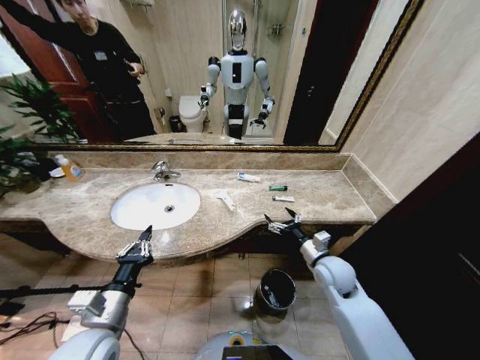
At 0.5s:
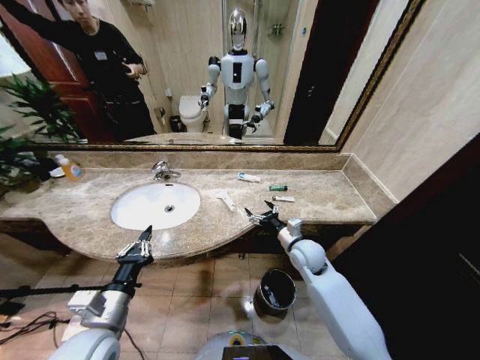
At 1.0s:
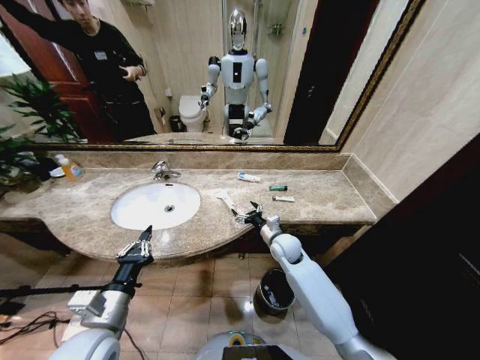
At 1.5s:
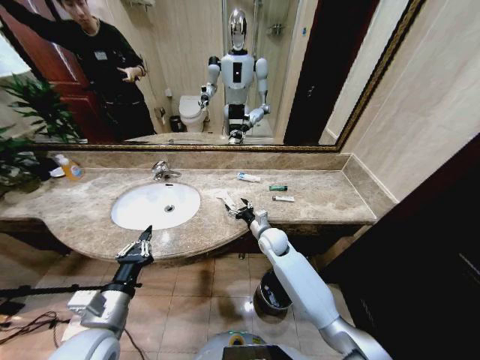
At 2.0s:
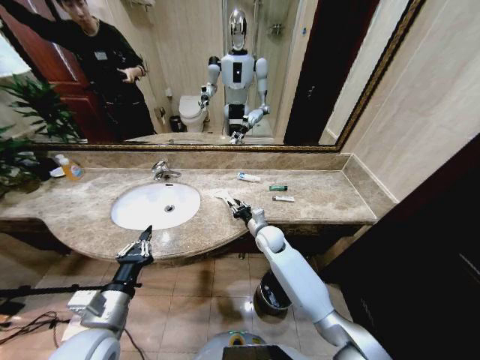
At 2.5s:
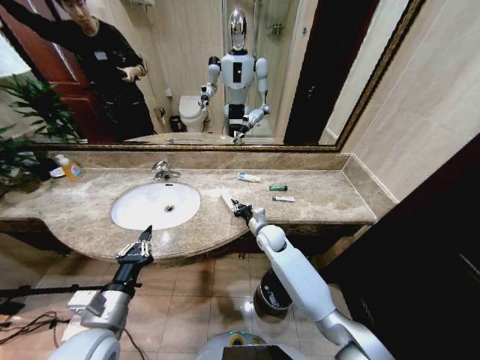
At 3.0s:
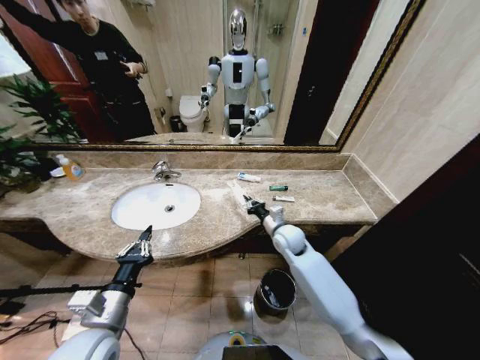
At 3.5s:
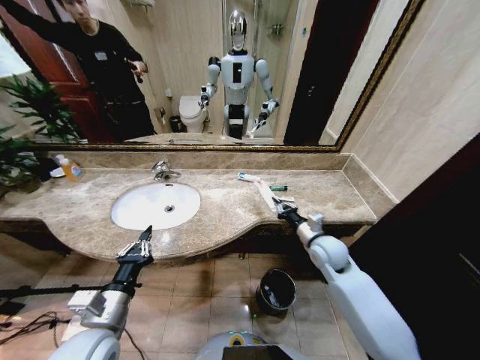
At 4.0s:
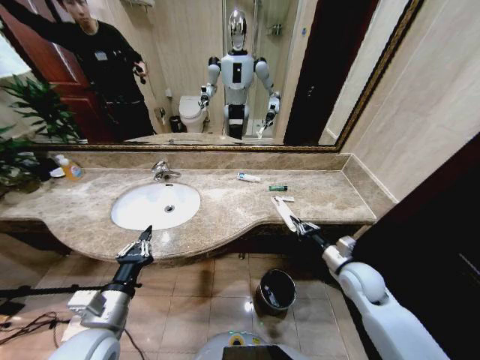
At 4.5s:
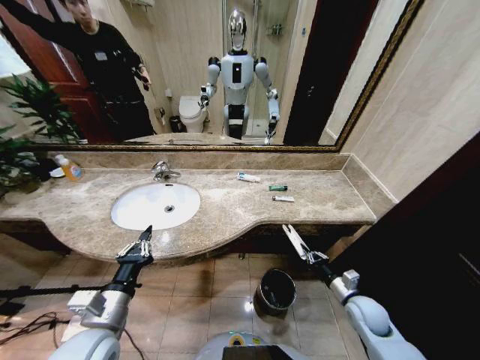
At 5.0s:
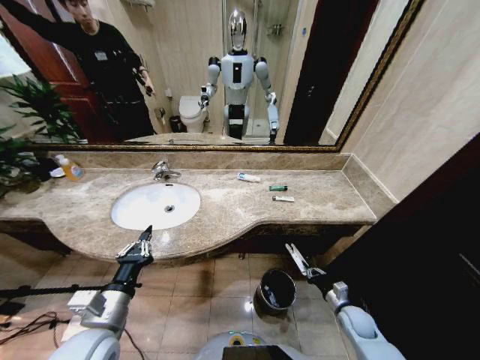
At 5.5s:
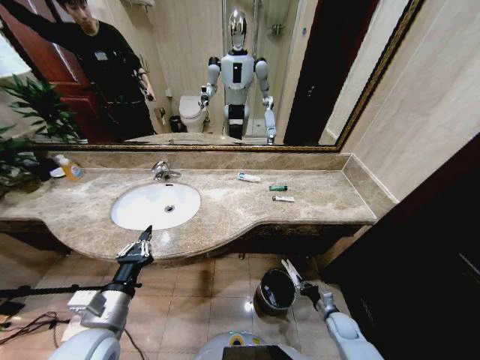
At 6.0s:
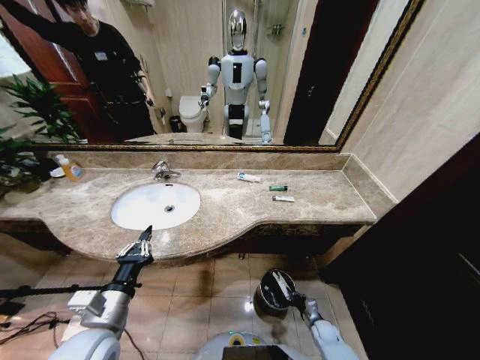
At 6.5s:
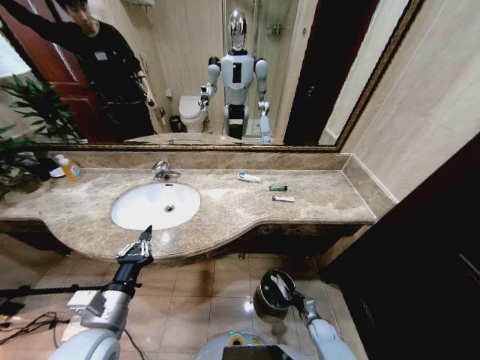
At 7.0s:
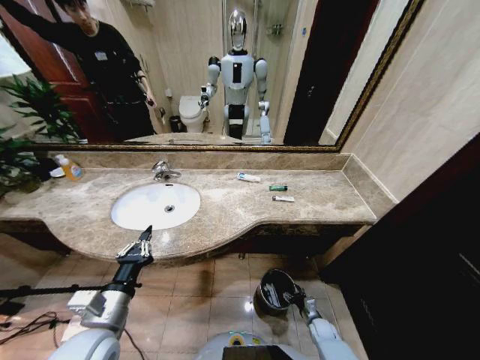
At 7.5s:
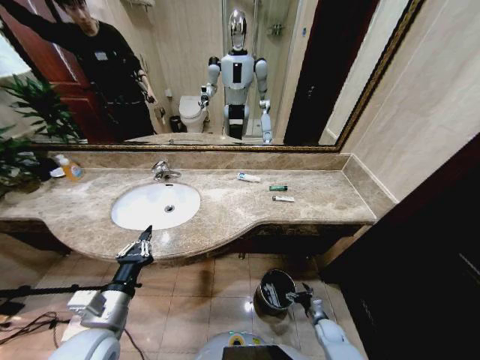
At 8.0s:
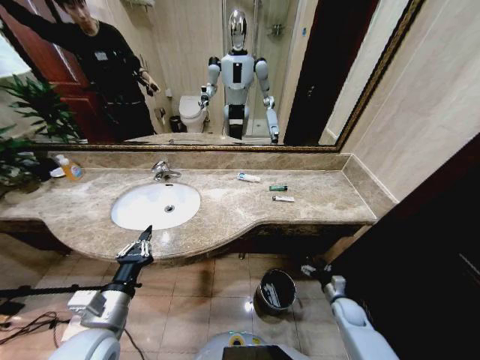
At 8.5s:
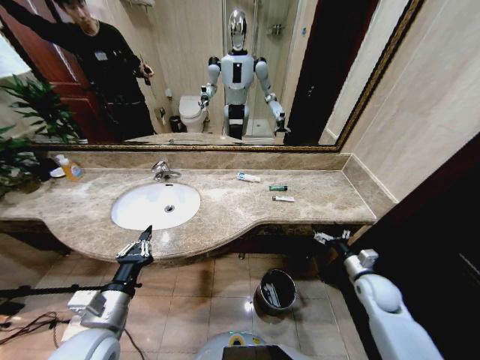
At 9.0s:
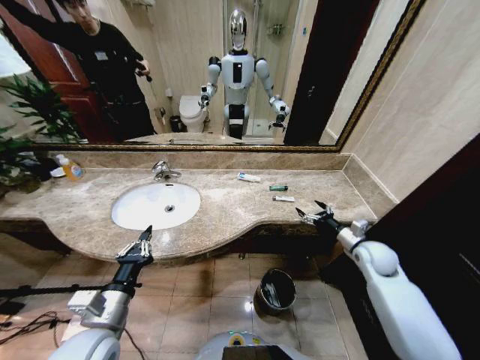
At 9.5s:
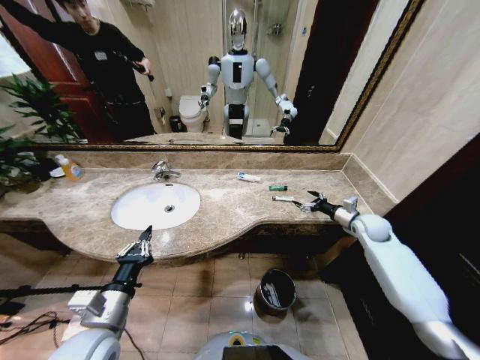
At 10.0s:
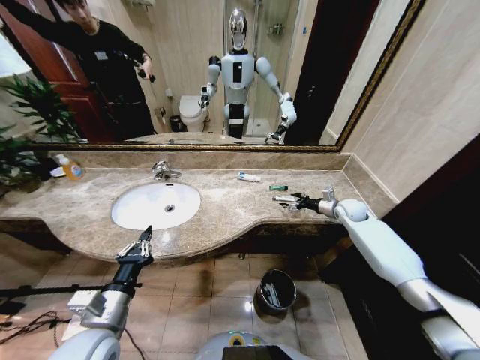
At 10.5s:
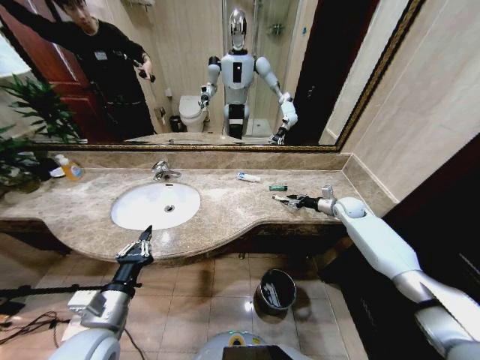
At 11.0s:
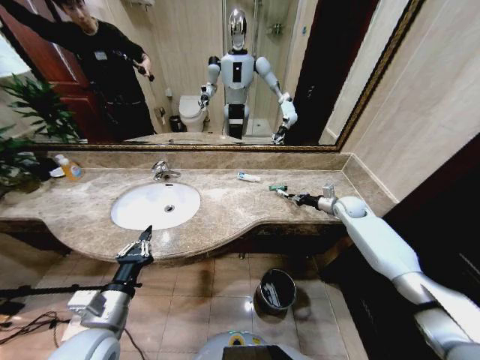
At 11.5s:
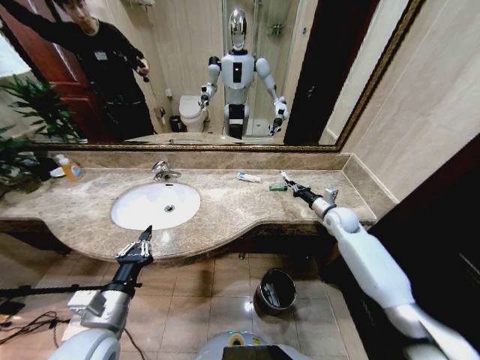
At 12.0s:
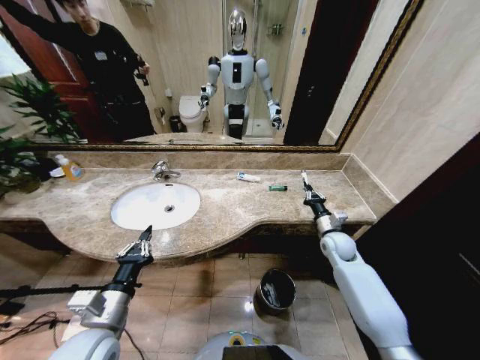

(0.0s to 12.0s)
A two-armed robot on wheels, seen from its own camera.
Task of the whole recording: Pick up the trash from the sink and place it in the trash bin.
0.0s - 2.0s: The right gripper shifts about 20 cm to the left and forward, and closes.
2.0s - 4.0s: The right gripper moves to the right and backward, some 30 cm, and closes its fingers.
4.0s - 6.0s: The right gripper moves downward, about 35 cm.
6.0s - 8.0s: The right gripper travels upward, to the right and forward by roughly 15 cm, and opens up.
8.0s - 10.0s: The right gripper heads forward and upward, covering some 35 cm.
10.0s - 12.0s: The right gripper goes roughly 15 cm backward, to the left and downward, and closes up.

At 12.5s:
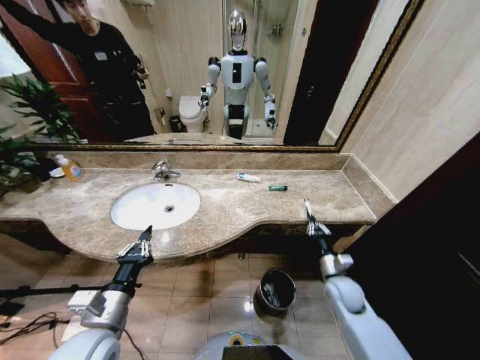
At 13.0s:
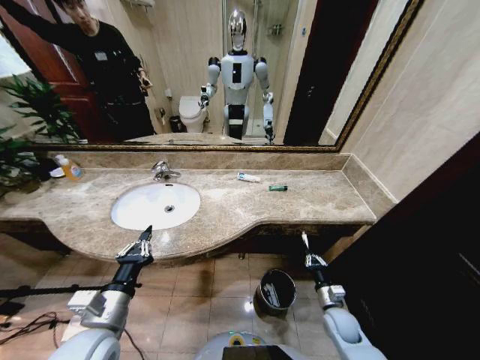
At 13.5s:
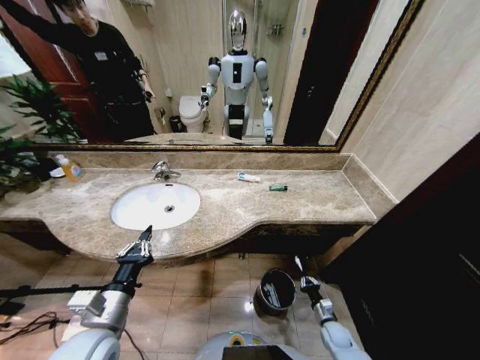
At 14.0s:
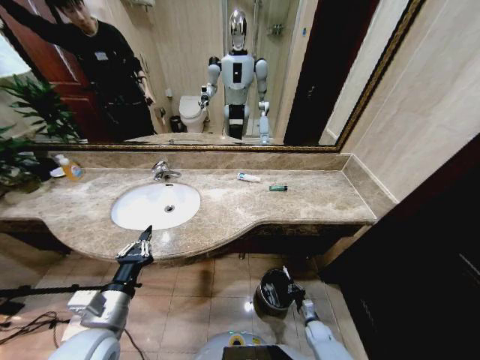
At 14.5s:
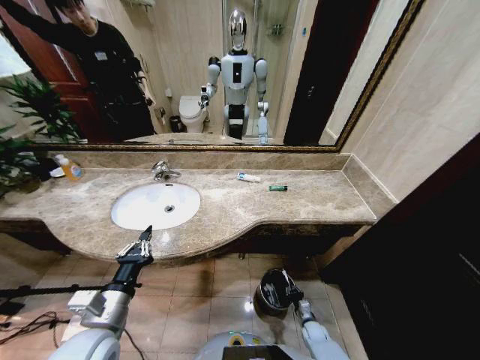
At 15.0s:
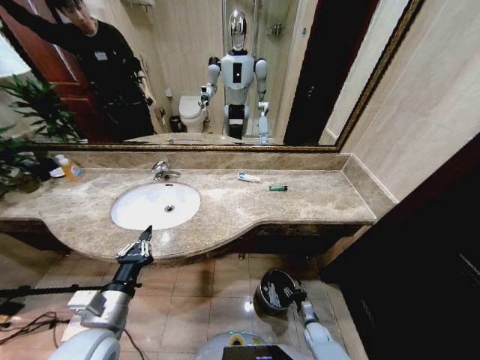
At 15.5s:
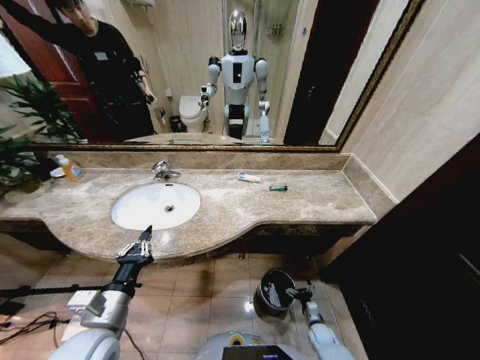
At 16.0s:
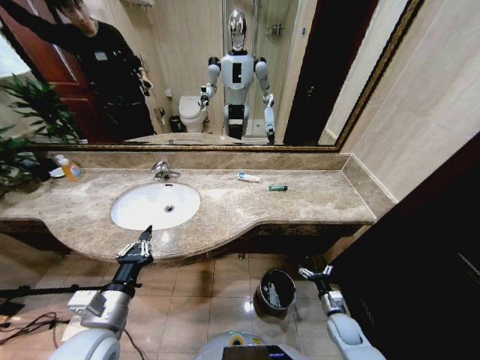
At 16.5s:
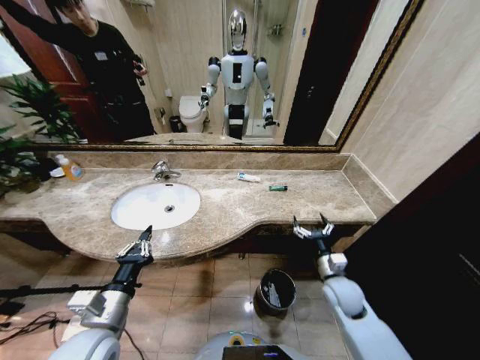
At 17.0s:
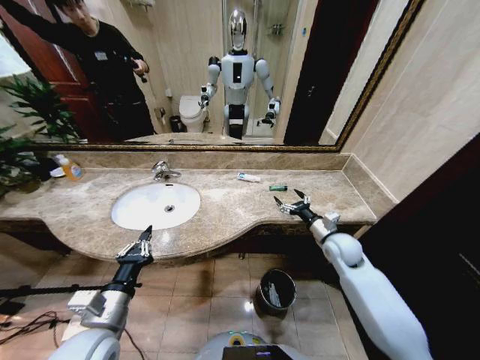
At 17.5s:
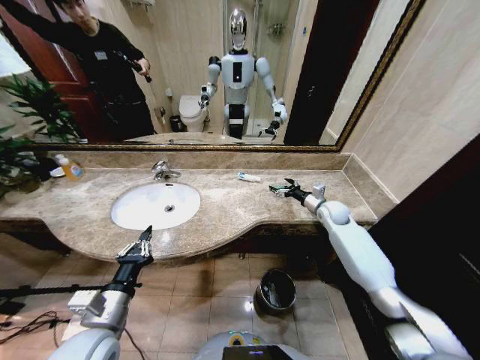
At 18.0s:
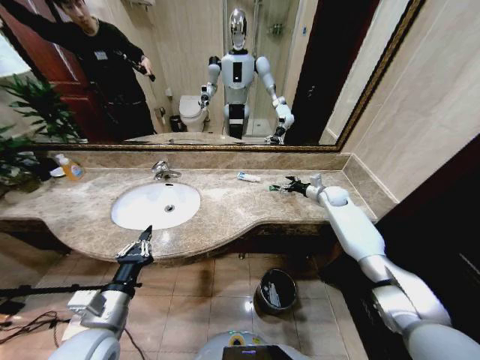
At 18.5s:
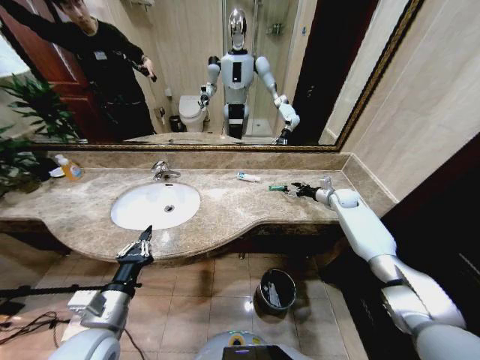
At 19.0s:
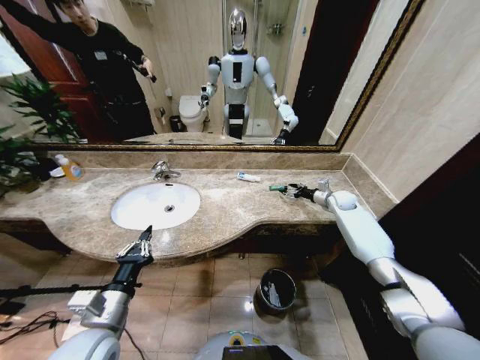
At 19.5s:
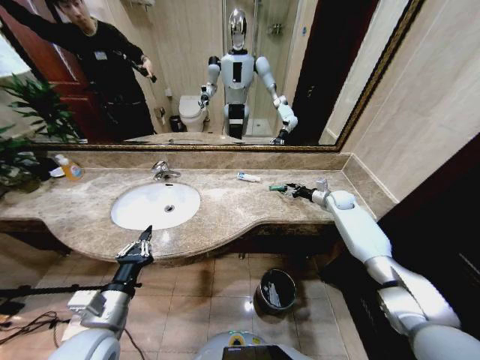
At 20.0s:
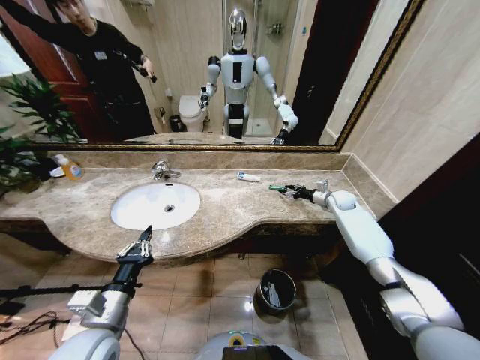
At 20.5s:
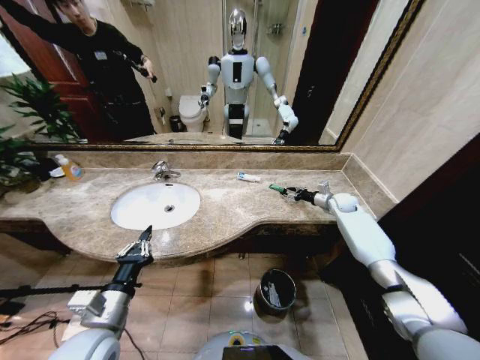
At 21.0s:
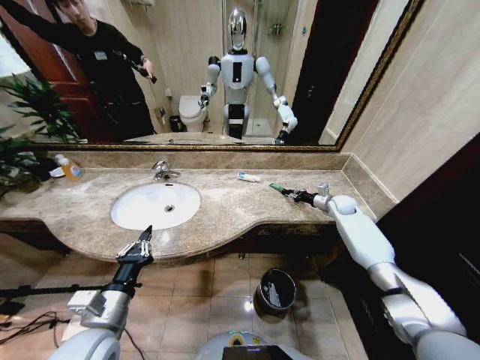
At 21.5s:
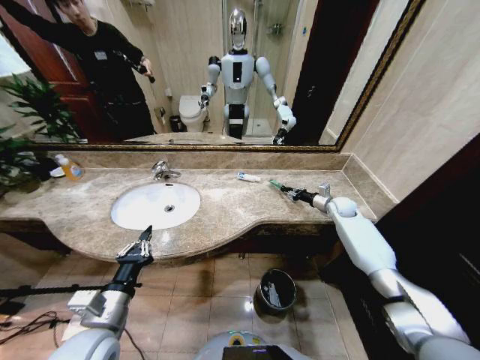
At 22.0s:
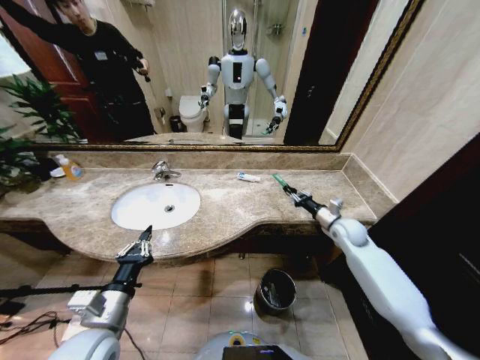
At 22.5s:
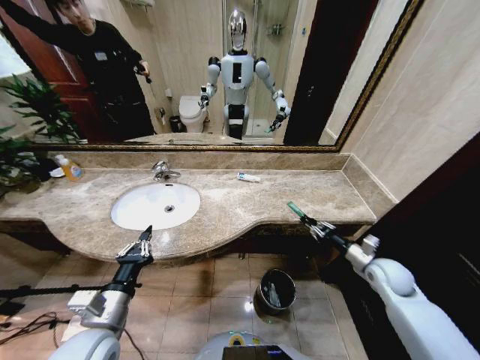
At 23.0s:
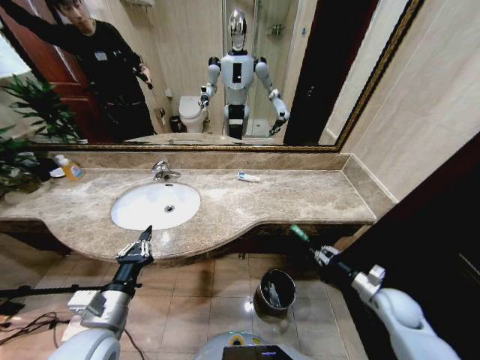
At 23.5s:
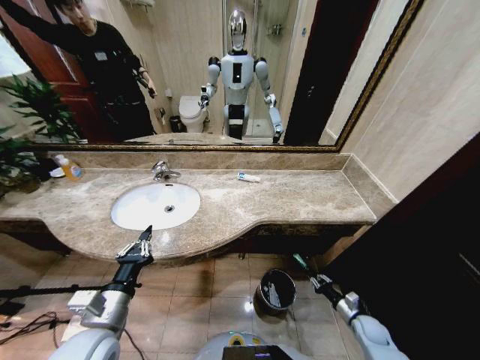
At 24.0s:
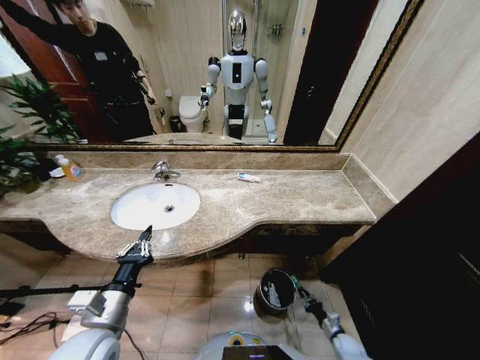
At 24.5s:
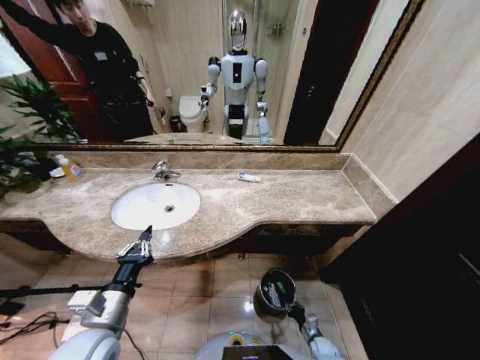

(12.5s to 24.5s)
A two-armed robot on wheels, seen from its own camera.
Task of the whole recording: Pick up the trash from the sink and place it in the trash bin.
12.5s - 14.5s: The right gripper is displaced downward by roughly 30 cm.
14.5s - 16.5s: The right gripper goes roughly 30 cm upward, and opens up.
16.5s - 18.5s: The right gripper is displaced forward and to the right by roughly 35 cm.
18.5s - 20.5s: There are only small adjustments of the grippers.
20.5s - 22.5s: The right gripper shifts about 25 cm backward, and closes its fingers.
22.5s - 24.5s: The right gripper goes roughly 40 cm downward.

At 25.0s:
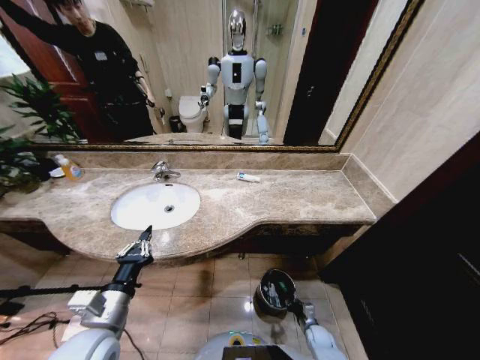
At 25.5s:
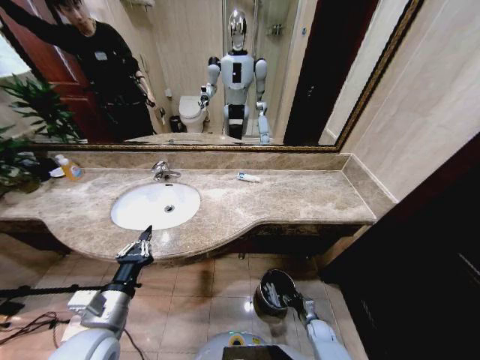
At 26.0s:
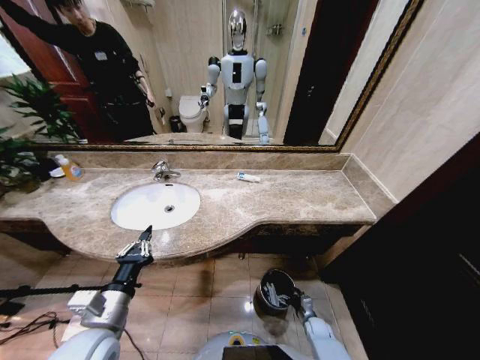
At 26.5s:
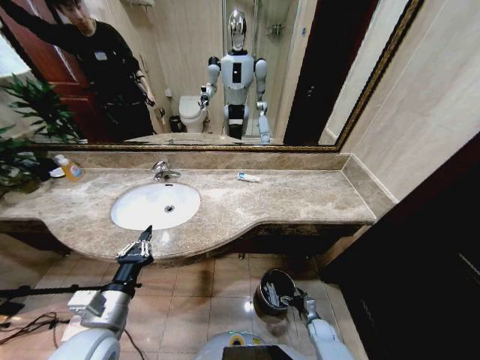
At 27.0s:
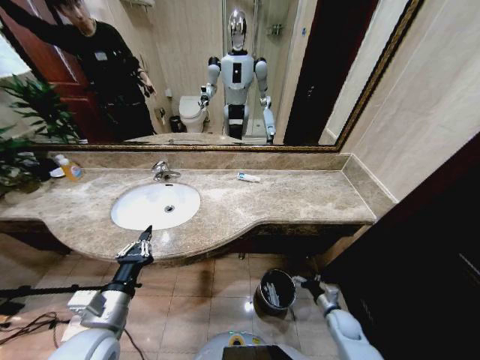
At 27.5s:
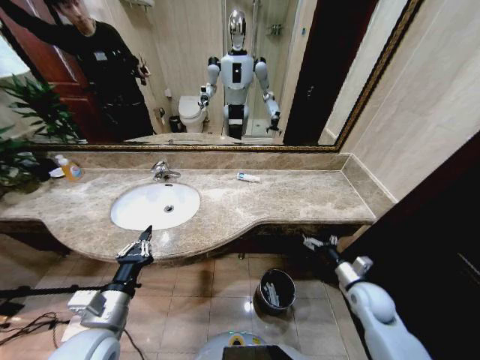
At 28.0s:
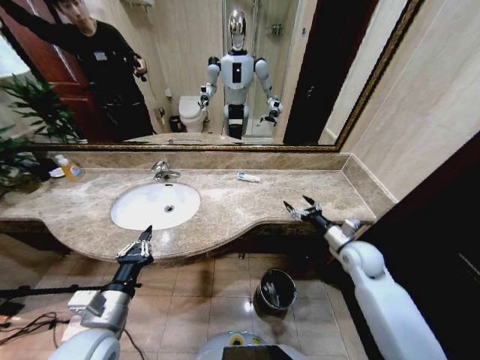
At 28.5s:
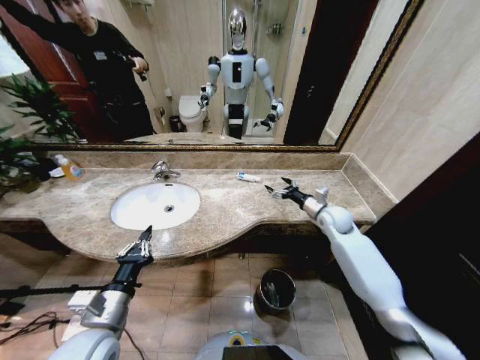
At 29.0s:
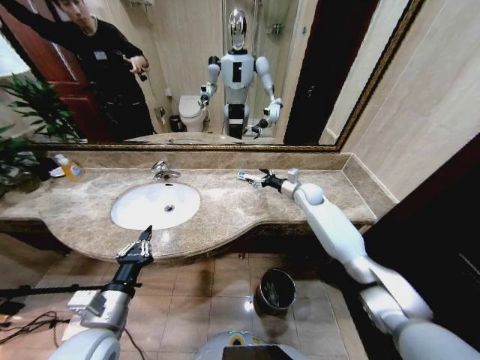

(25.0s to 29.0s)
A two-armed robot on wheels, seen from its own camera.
Task of the whole recording: Pick up the trash from the sink and place it in the trash bin.
25.0s - 27.0s: The right gripper travels upward and to the right by approximately 10 cm, and opens.
27.0s - 29.0s: The right gripper shifts roughly 50 cm forward and upward.
